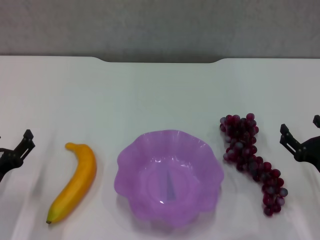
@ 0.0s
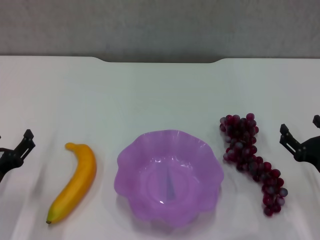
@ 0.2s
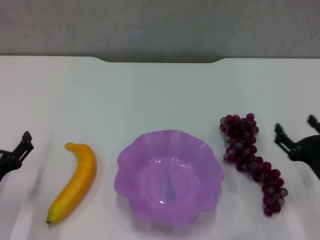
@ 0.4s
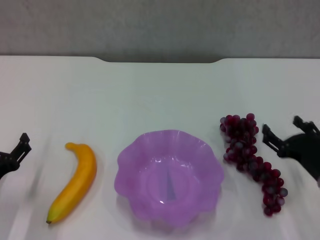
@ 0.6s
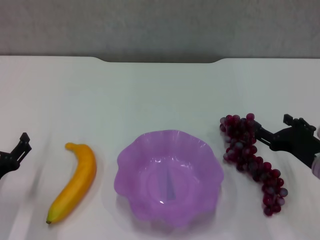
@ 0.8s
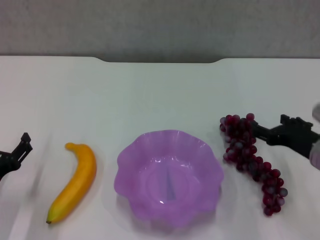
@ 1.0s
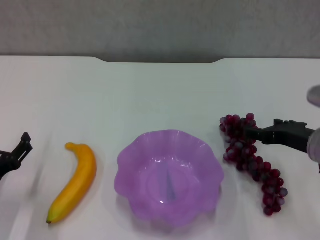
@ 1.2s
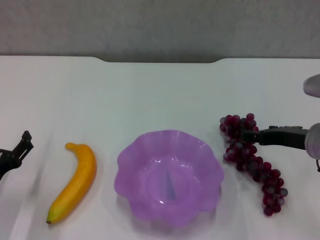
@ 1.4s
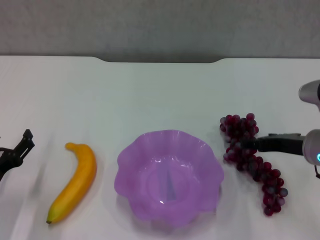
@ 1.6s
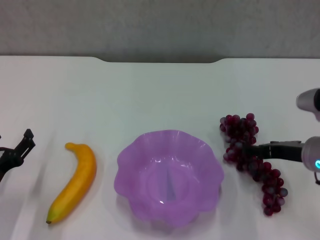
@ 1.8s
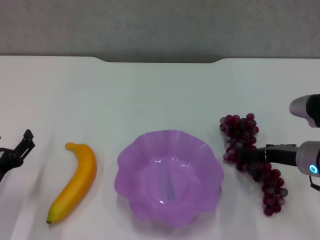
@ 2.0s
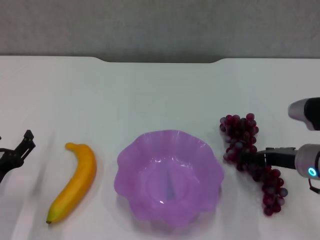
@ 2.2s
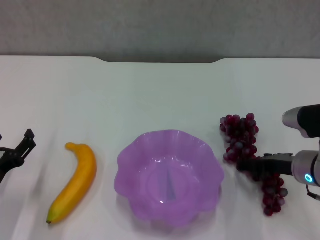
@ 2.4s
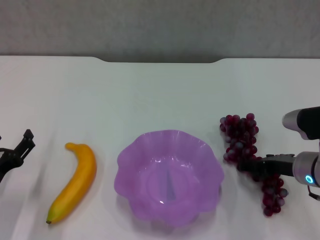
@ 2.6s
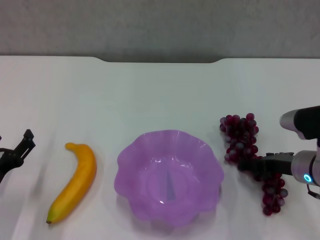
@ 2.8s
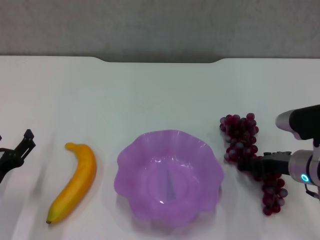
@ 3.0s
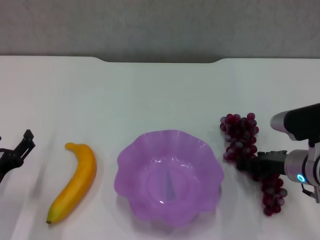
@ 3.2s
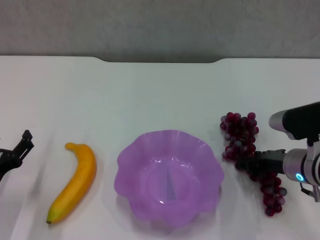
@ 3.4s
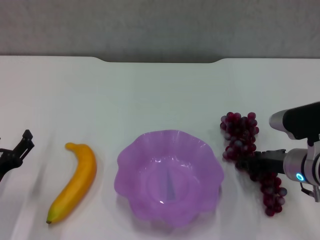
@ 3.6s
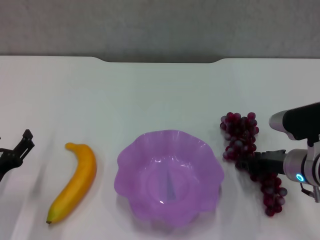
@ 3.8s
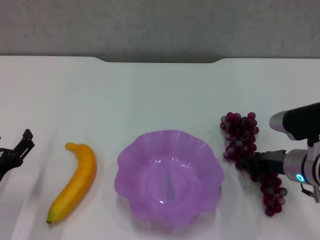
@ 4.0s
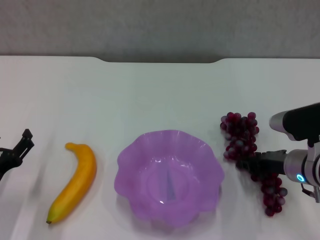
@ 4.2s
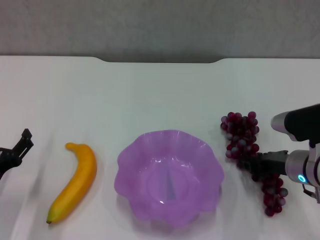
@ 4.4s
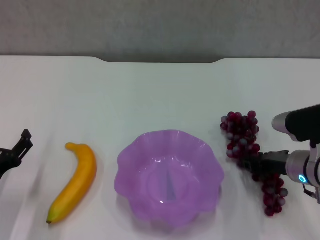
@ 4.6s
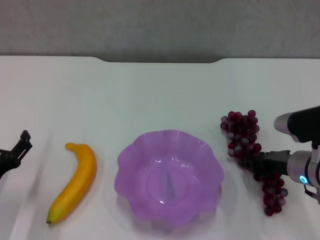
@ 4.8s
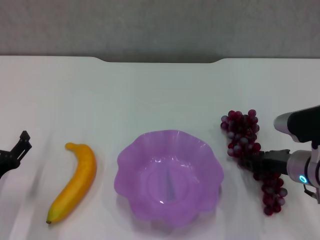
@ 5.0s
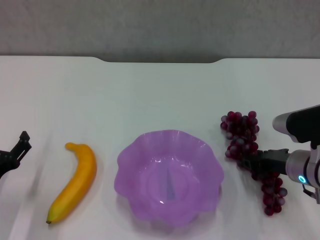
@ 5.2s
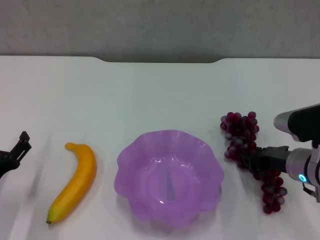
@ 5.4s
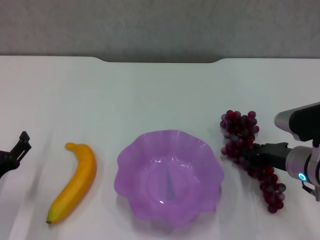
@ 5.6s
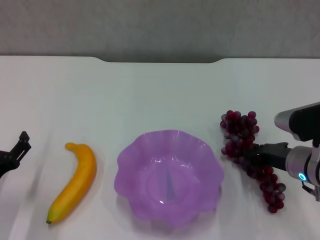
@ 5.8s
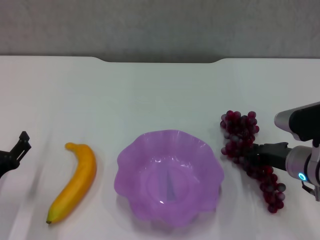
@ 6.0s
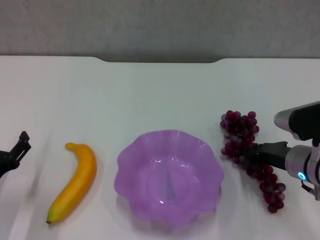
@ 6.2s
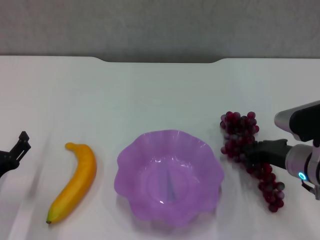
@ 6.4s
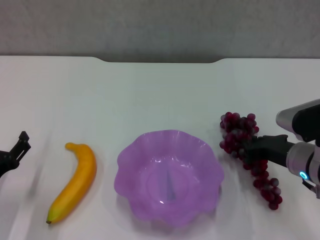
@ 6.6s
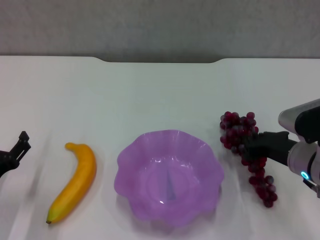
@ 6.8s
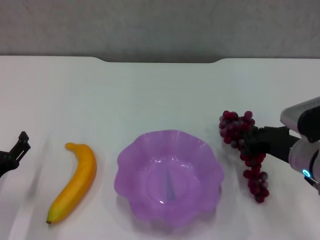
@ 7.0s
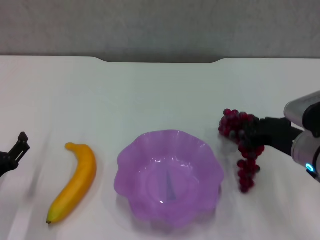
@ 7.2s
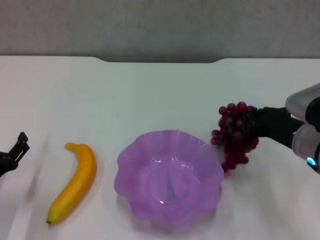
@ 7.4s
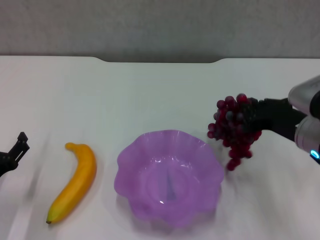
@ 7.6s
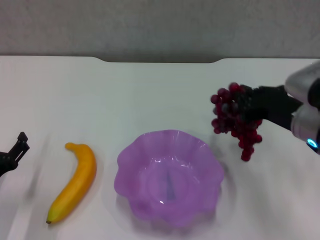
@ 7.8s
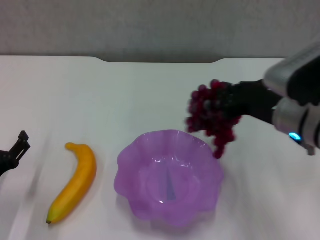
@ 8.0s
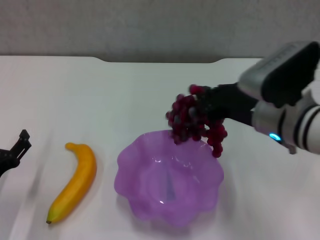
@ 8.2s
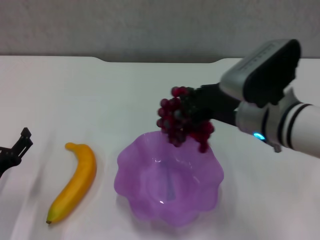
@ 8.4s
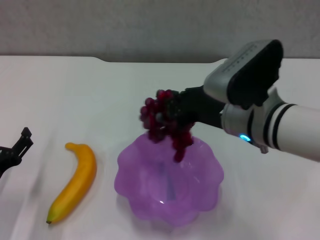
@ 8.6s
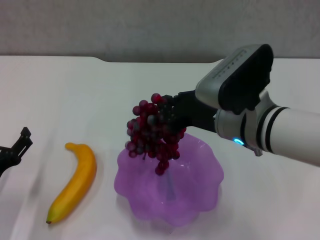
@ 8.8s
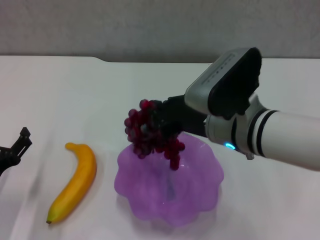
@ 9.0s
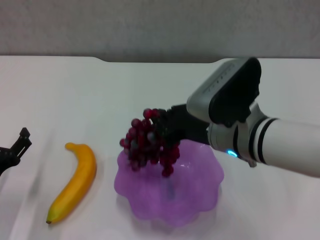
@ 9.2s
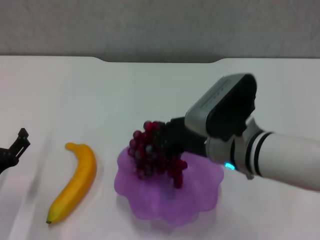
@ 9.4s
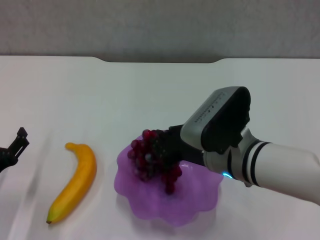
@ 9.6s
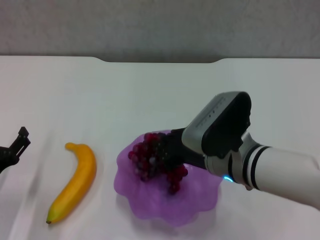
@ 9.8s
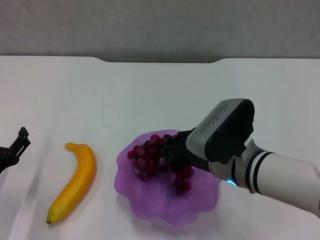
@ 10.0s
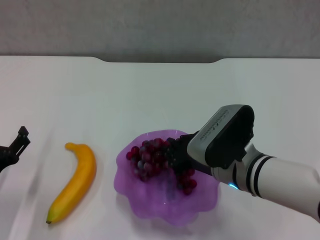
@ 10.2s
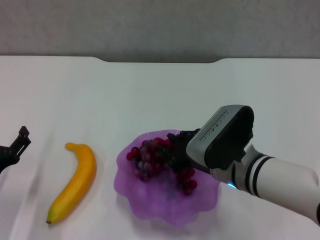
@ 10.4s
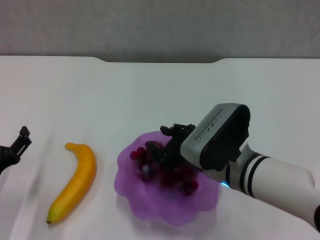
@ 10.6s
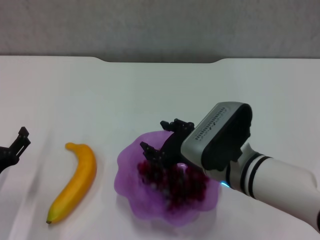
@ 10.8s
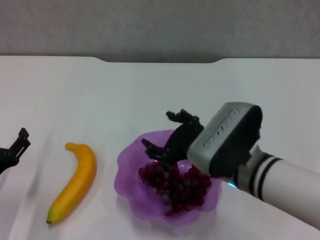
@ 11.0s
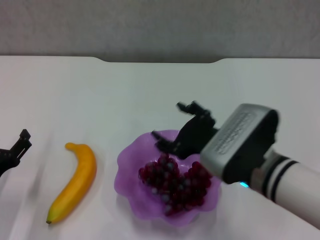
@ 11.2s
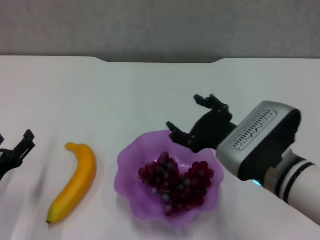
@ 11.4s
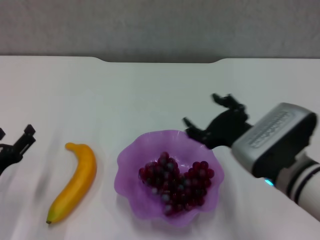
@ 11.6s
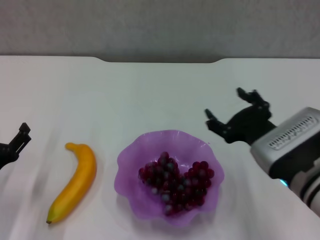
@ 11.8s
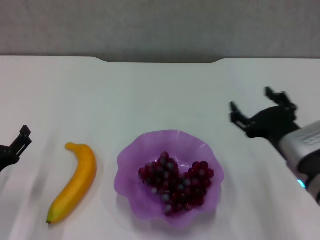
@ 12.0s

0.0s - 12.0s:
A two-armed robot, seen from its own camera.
Step, 0.0s - 4.0s: Grasp the grape with right gripper.
Step, 4.2s - 11.2s: Place the grape in the purple plate with right gripper.
0.0s - 1.6s: The right gripper is displaced upward and forward by roughly 10 cm.
1.6s - 3.0s: The right gripper goes some 5 cm downward.
3.0s - 4.4s: The right gripper closes up.
4.4s - 6.0s: The grippers stay close to where they were, moving slightly.
6.0s - 7.6s: The right gripper travels upward by about 5 cm.
7.6s - 9.0s: The right gripper goes some 10 cm to the left.
9.0s - 10.4s: The right gripper shifts about 5 cm downward.
10.4s - 12.0s: The right gripper travels to the right by roughly 10 cm, and opens.

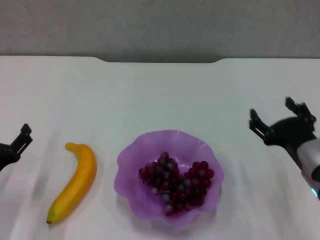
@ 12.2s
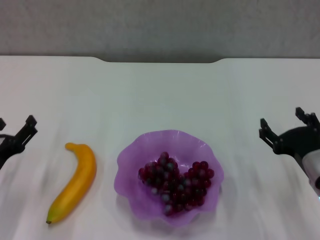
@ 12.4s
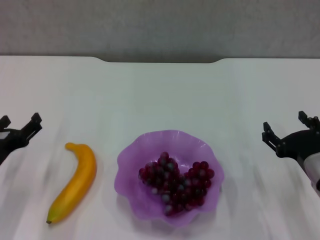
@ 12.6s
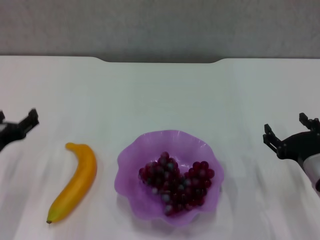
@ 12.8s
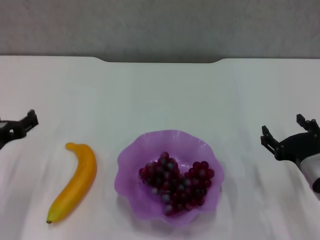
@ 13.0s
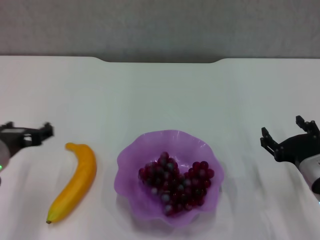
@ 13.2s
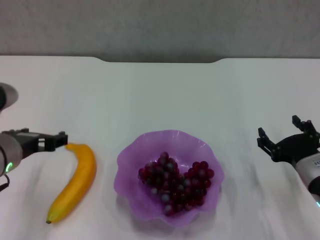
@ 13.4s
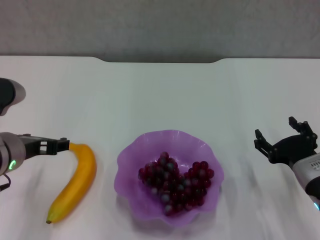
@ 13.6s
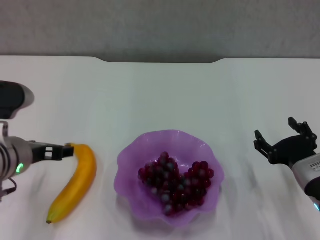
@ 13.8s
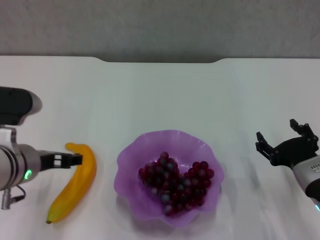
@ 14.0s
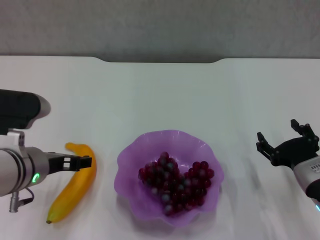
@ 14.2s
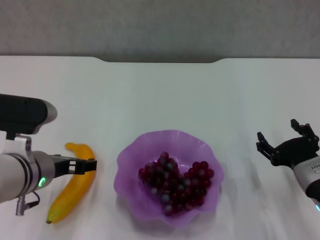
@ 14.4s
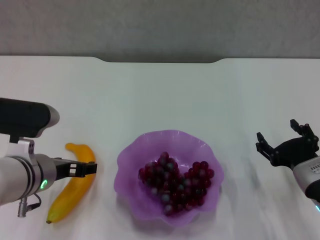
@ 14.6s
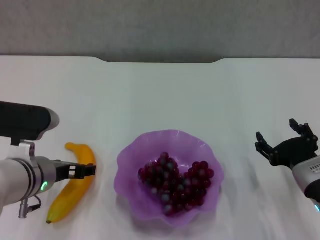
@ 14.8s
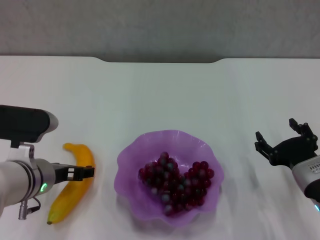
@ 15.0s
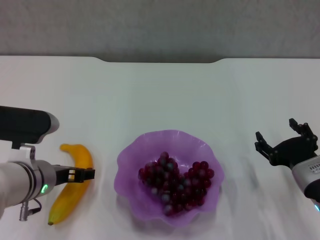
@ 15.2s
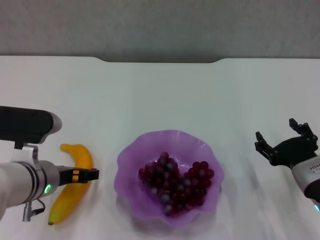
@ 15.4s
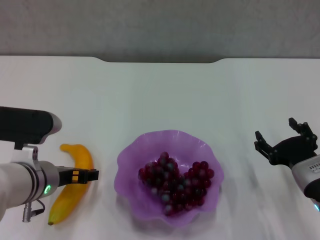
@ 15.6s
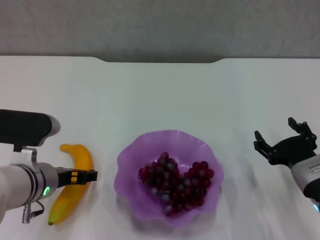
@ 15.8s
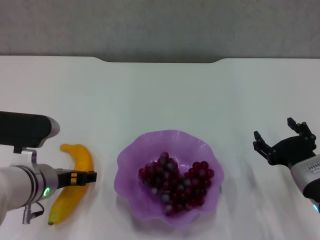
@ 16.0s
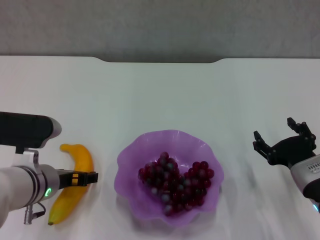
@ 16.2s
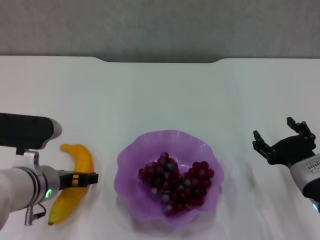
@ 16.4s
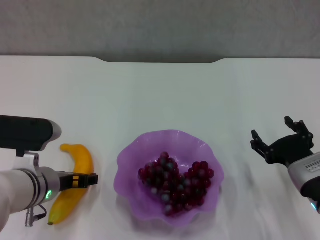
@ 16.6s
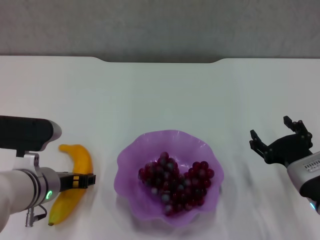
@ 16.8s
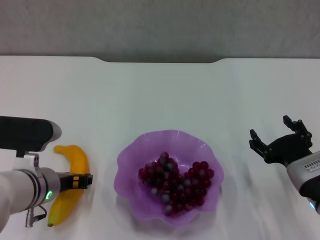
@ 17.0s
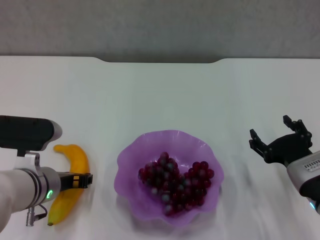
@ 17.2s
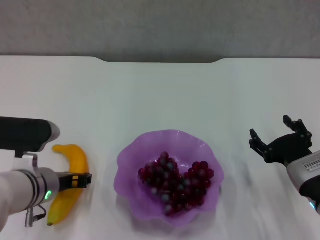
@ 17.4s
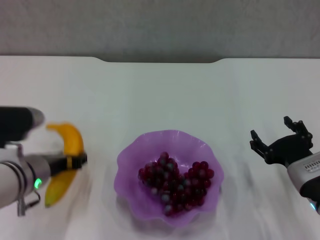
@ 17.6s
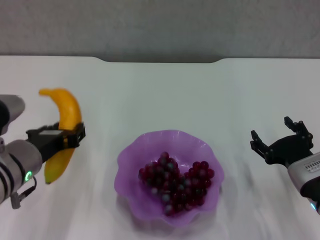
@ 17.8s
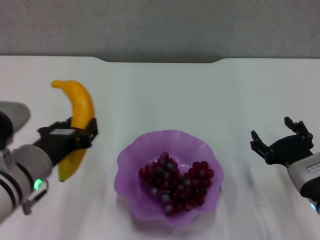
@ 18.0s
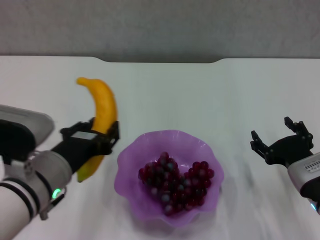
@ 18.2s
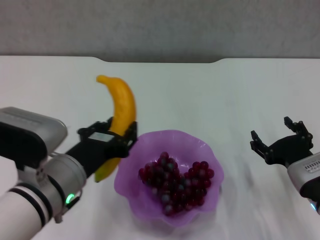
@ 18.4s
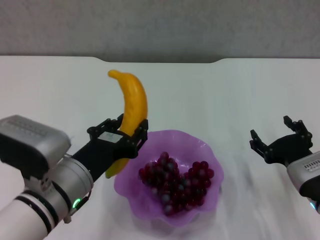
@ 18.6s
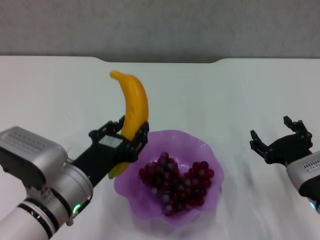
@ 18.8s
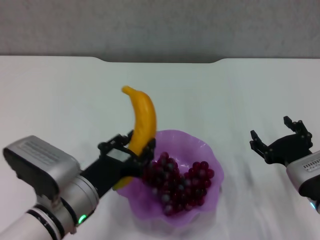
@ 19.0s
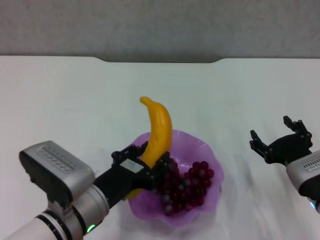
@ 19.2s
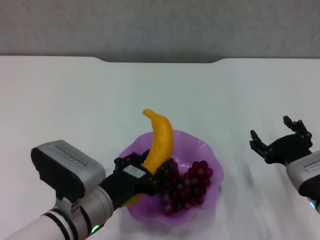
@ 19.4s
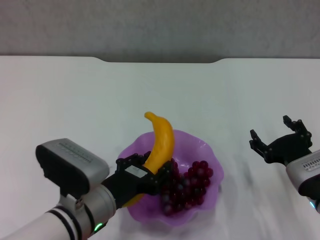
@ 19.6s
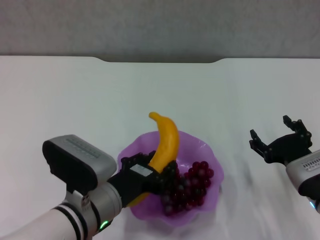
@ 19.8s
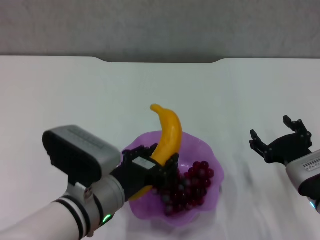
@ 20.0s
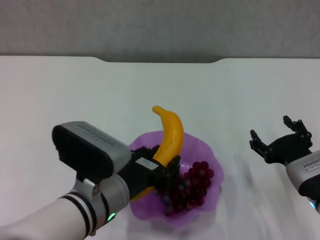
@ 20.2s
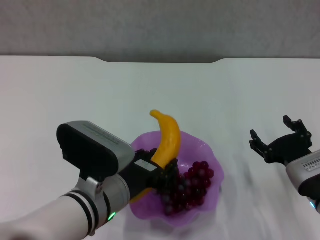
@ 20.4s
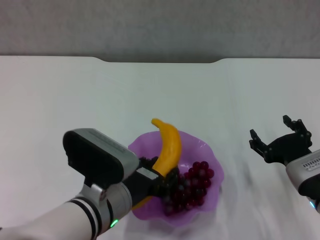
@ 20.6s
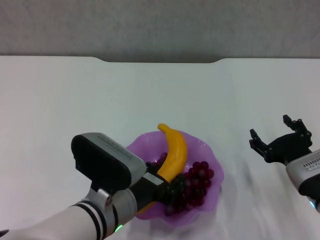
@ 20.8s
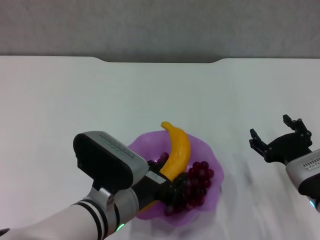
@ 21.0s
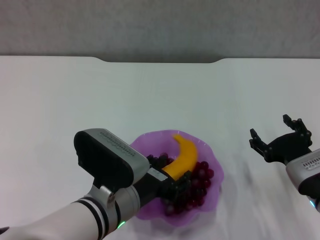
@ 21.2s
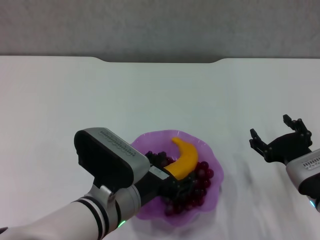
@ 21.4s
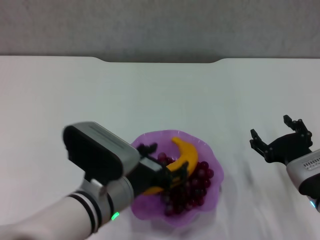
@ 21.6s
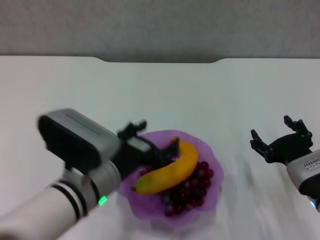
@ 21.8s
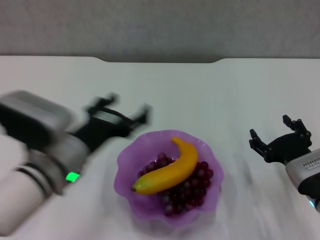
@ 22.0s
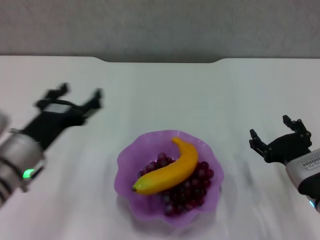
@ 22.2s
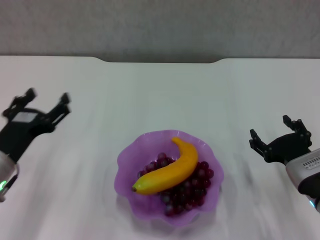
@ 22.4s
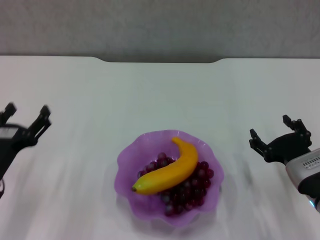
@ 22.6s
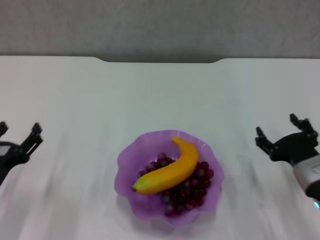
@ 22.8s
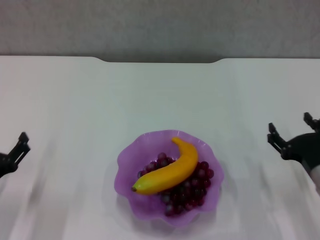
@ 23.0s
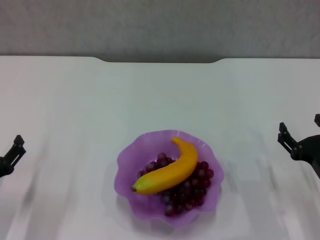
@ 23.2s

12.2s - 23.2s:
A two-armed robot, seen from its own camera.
Step, 12.2s - 17.0s: Grasp the banana with left gripper.
Step, 17.4s - 21.8s: Place the banana in the purple plate with left gripper.
12.2s - 13.8s: The left gripper is displaced upward, to the right and forward by some 15 cm.
13.8s - 15.4s: The left gripper shifts by some 5 cm.
15.4s - 17.0s: The left gripper closes.
17.0s - 18.4s: The left gripper heads backward and upward, covering about 5 cm.
18.4s - 20.0s: The left gripper moves approximately 5 cm.
20.0s - 21.6s: The left gripper opens.
21.6s - 23.2s: The left gripper goes roughly 20 cm to the left.
